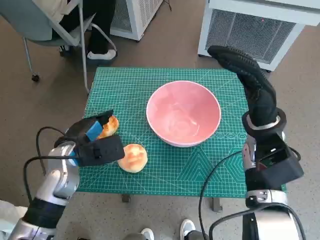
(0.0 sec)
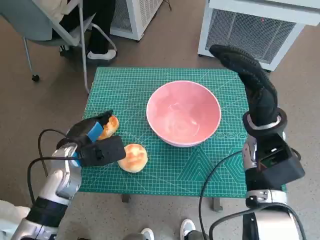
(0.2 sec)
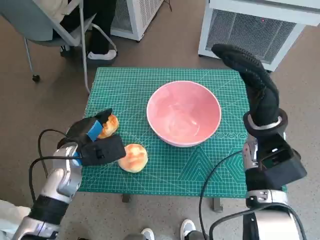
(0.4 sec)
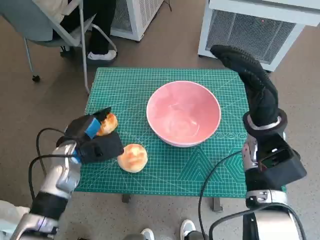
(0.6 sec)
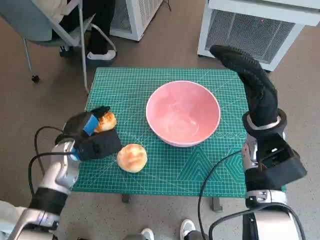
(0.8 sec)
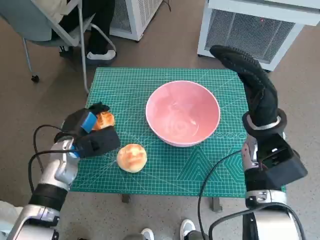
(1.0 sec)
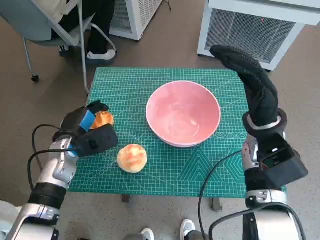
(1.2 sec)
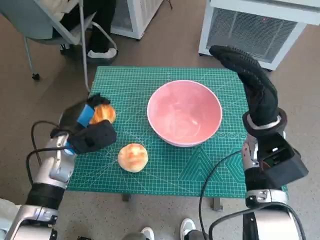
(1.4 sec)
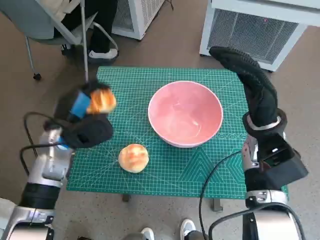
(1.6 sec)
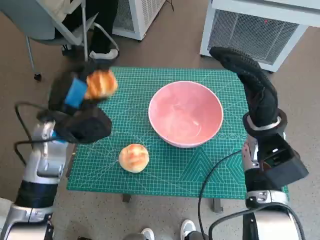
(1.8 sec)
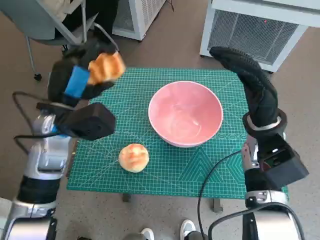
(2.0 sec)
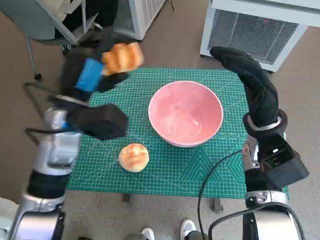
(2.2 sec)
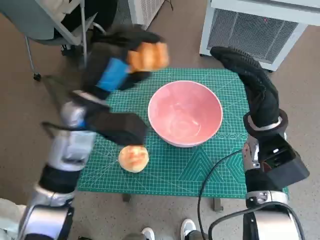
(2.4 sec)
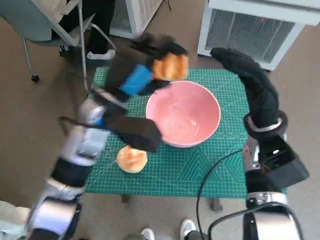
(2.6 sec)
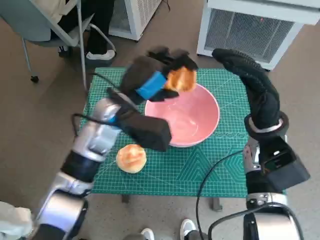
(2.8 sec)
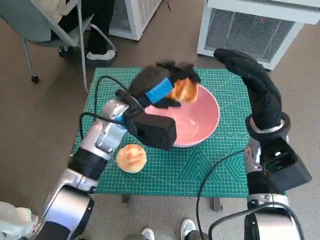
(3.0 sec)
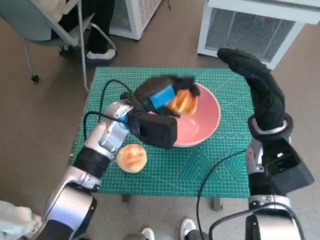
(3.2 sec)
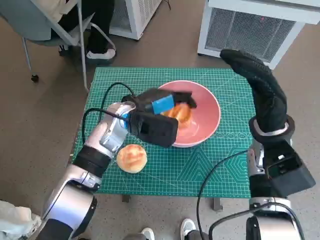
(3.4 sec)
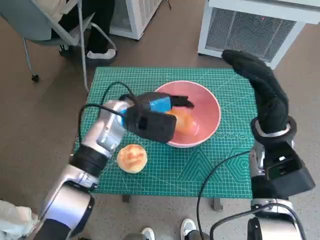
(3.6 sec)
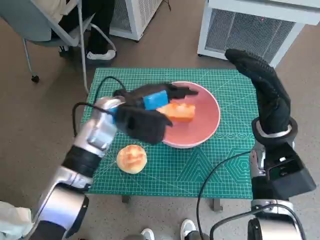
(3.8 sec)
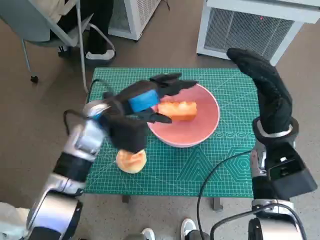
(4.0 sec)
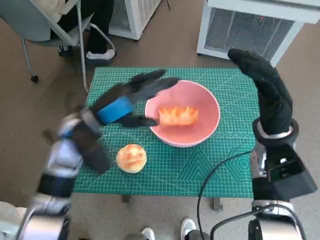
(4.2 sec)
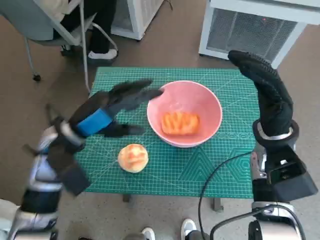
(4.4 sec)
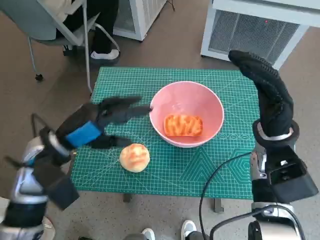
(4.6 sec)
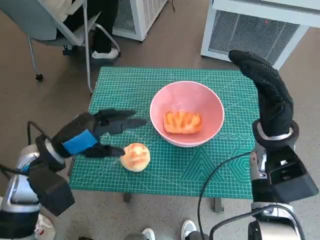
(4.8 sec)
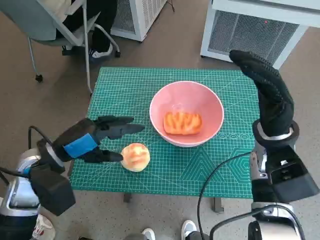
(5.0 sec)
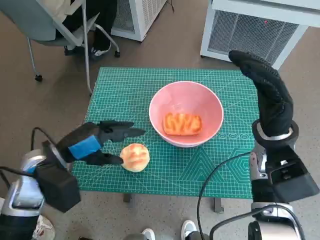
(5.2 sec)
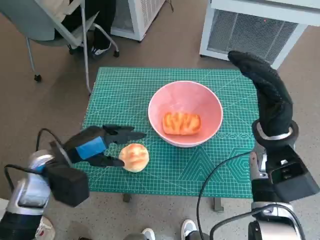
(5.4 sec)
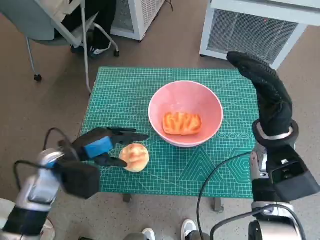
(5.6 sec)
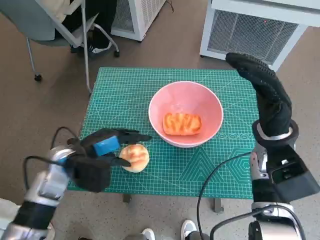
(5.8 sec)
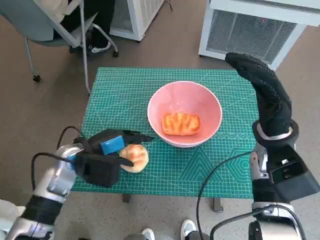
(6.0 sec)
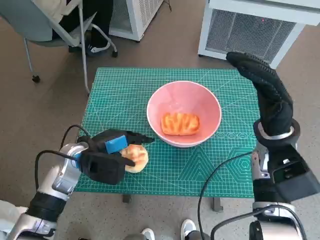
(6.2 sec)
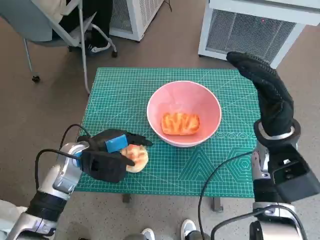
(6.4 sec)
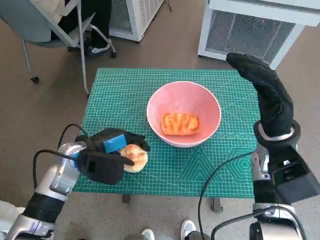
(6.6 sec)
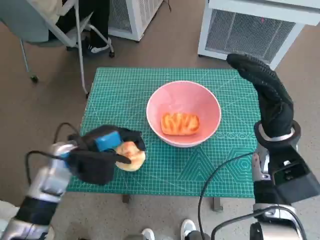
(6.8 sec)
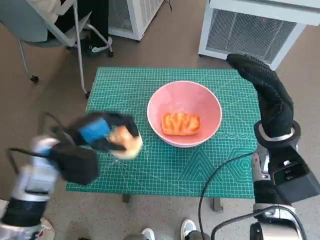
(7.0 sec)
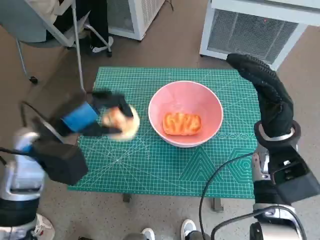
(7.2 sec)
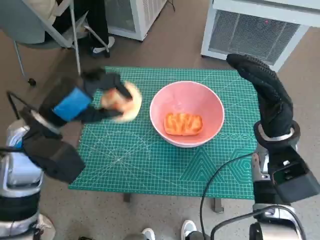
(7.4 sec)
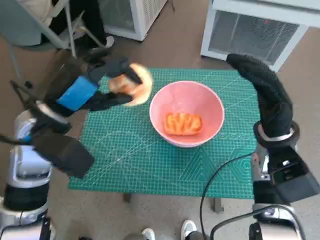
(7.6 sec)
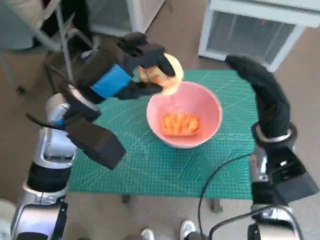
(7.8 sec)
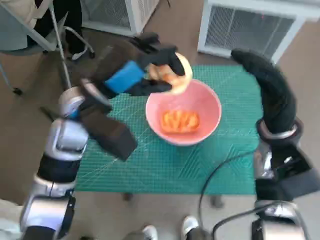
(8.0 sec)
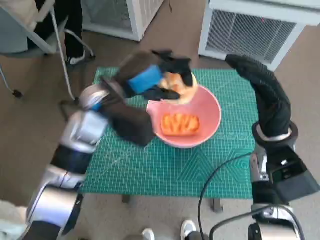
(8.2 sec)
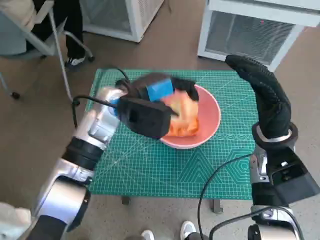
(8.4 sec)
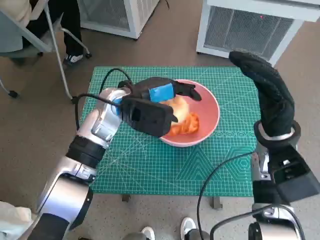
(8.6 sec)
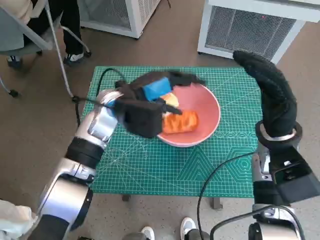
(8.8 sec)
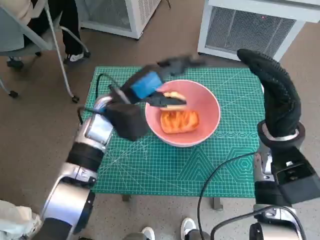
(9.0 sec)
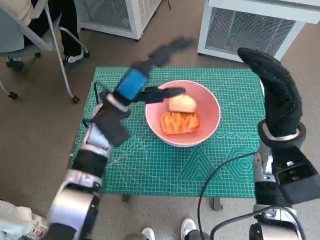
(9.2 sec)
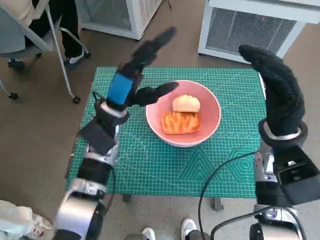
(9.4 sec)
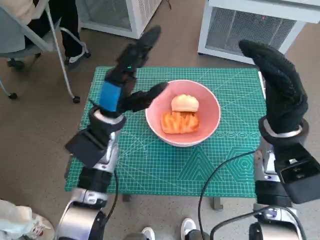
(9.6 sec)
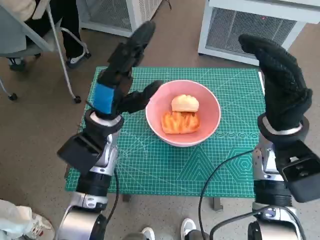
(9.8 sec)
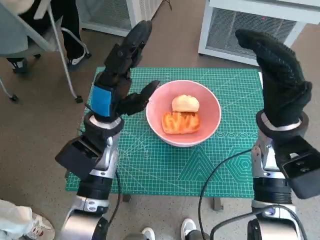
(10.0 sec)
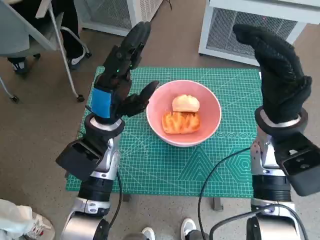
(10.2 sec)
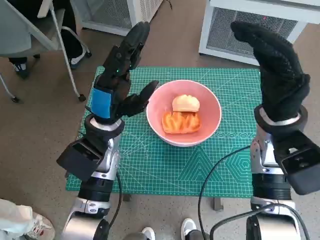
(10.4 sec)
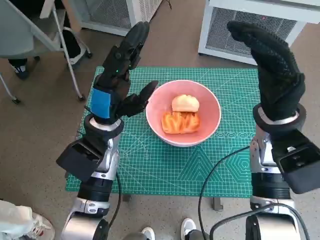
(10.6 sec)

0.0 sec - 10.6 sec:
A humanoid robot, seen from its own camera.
Task of the whole recording: Push the bowl to the center of the table and put the bread into the bowl.
Step, 1.2 sec - 3.8 sec: Place the long bread in pink bowl with left hand.
Step, 4.2 sec - 6.6 sec: Grasp the round bread with left hand.
Step, 6.8 sec - 8.8 sec: Place the round bread in pink bowl with left hand.
1.6 sec - 3.0 sec: The left hand shifts roughly 15 cm to the right and upward.
3.0 sec - 4.6 sec: The left hand goes about 15 cm to the left and backward.
4.6 sec - 6.0 sec: The left hand travels downward by some 5 cm.
6.0 sec - 7.6 sec: The left hand moves upward, some 10 cm.
7.6 sec - 9.0 sec: The left hand shifts roughly 15 cm to the right, forward and downward.
9.0 sec - 10.6 sec: The left hand moves some 5 cm.

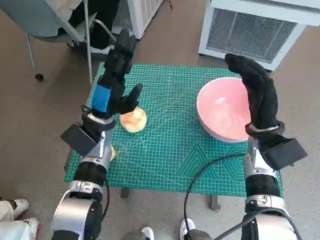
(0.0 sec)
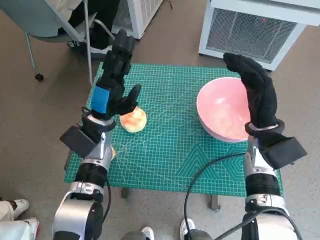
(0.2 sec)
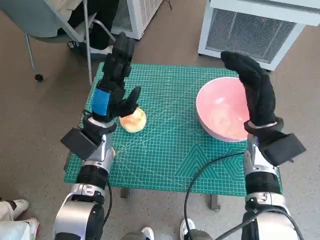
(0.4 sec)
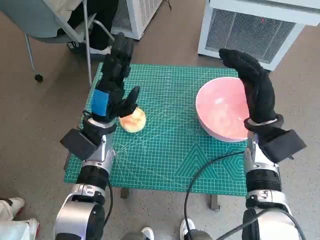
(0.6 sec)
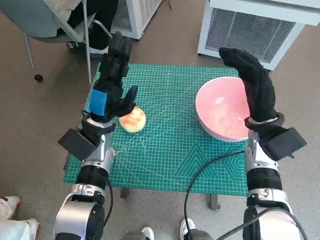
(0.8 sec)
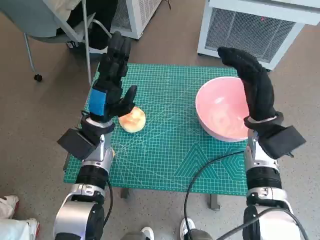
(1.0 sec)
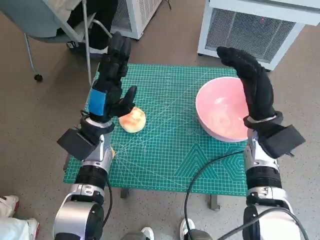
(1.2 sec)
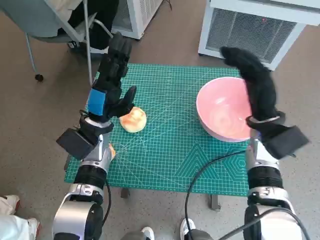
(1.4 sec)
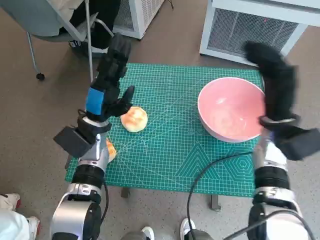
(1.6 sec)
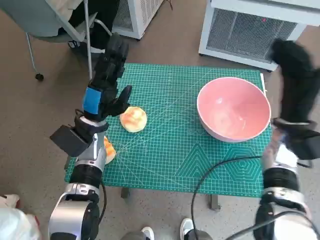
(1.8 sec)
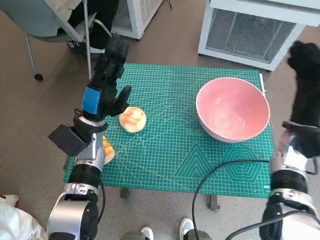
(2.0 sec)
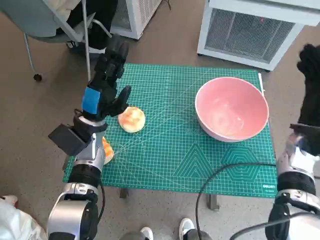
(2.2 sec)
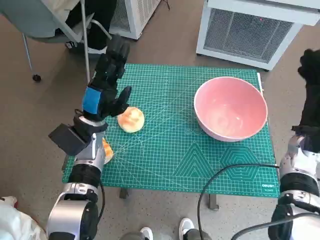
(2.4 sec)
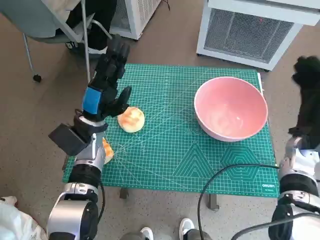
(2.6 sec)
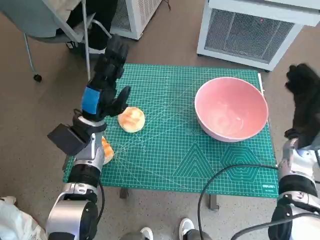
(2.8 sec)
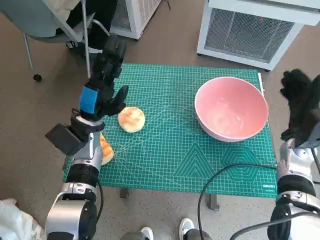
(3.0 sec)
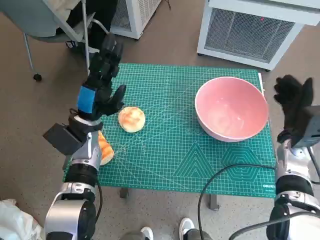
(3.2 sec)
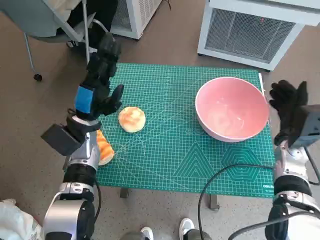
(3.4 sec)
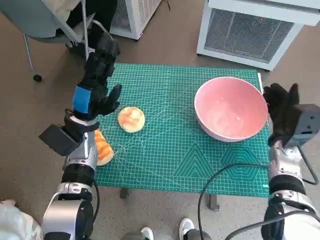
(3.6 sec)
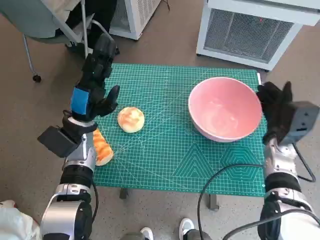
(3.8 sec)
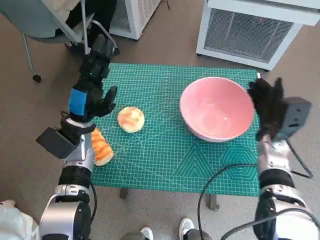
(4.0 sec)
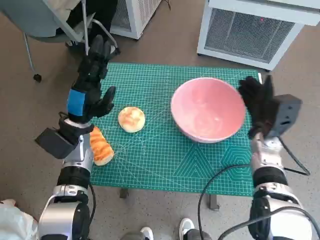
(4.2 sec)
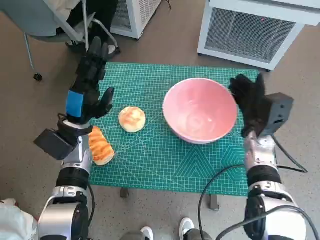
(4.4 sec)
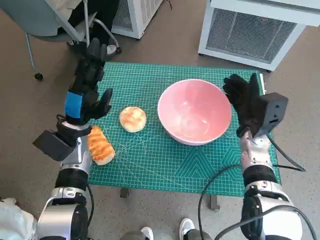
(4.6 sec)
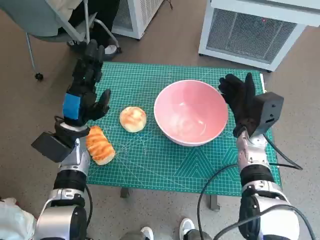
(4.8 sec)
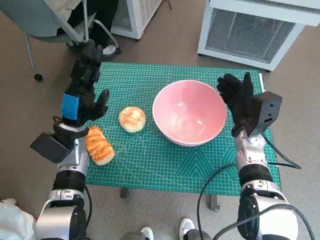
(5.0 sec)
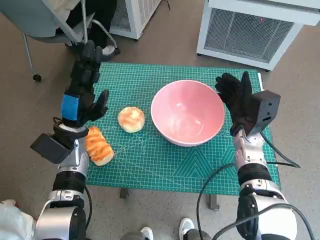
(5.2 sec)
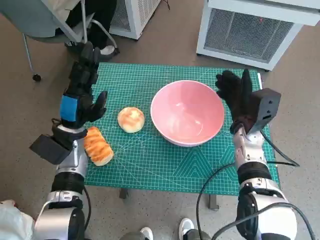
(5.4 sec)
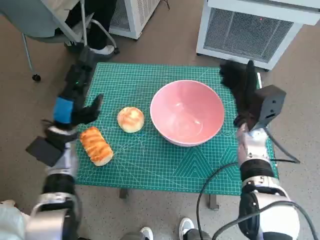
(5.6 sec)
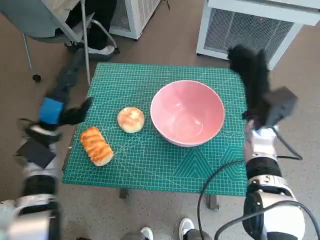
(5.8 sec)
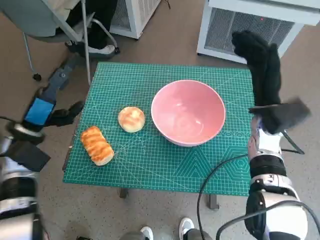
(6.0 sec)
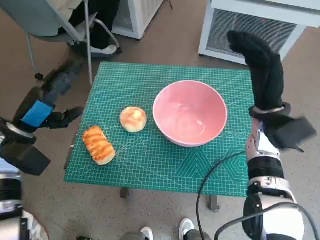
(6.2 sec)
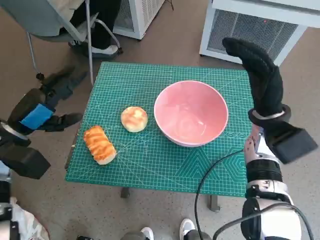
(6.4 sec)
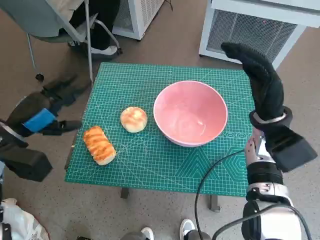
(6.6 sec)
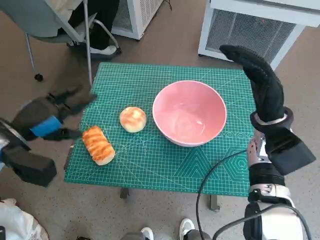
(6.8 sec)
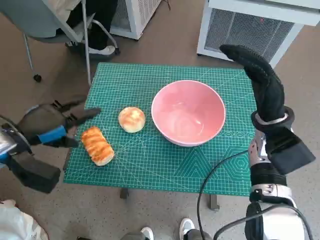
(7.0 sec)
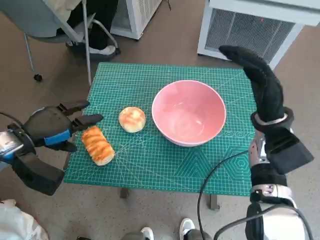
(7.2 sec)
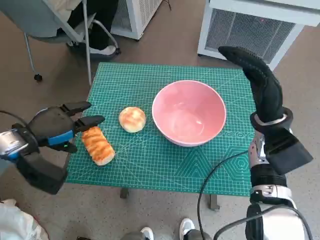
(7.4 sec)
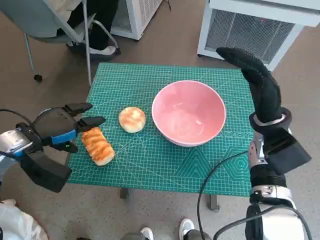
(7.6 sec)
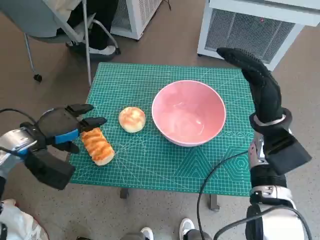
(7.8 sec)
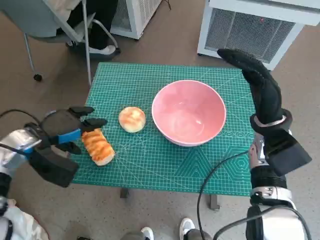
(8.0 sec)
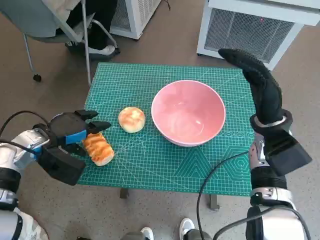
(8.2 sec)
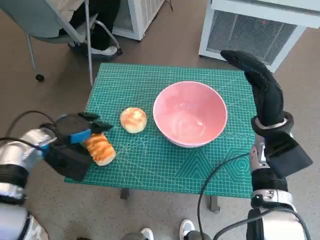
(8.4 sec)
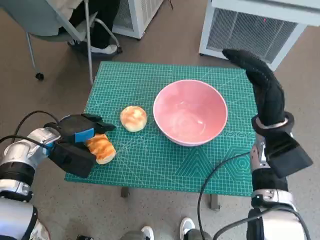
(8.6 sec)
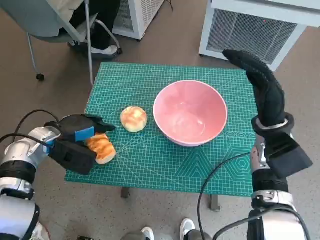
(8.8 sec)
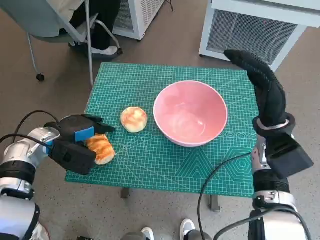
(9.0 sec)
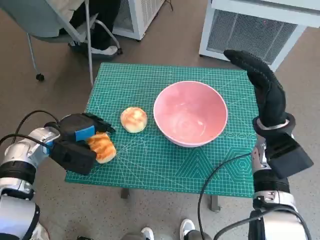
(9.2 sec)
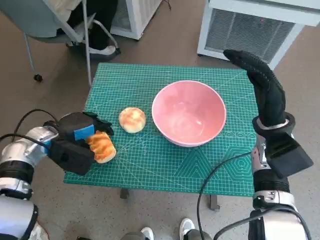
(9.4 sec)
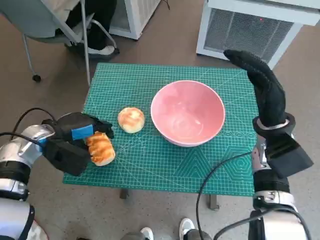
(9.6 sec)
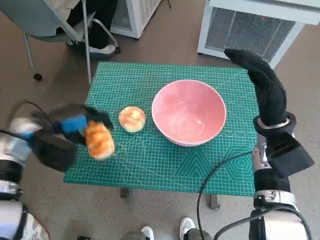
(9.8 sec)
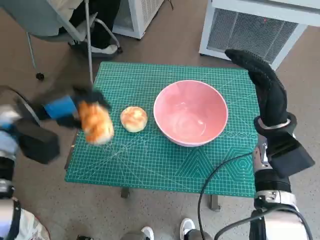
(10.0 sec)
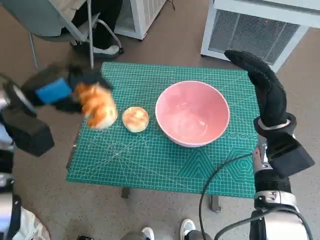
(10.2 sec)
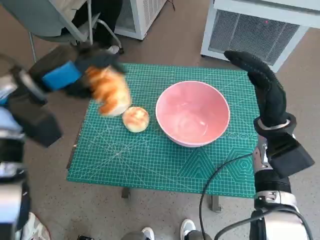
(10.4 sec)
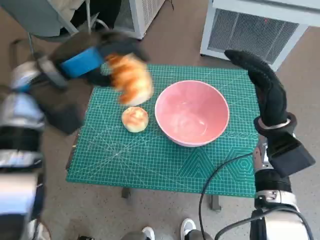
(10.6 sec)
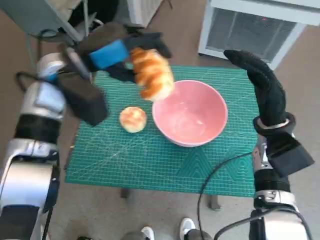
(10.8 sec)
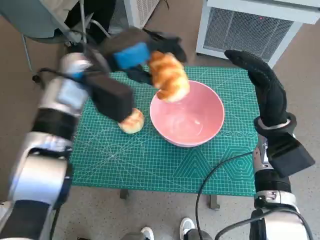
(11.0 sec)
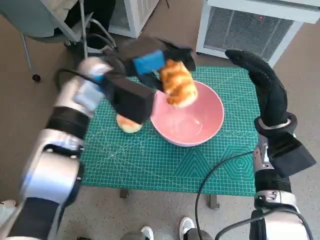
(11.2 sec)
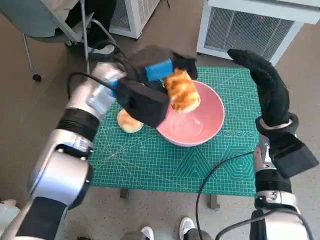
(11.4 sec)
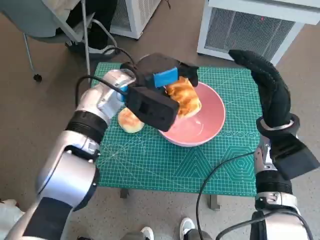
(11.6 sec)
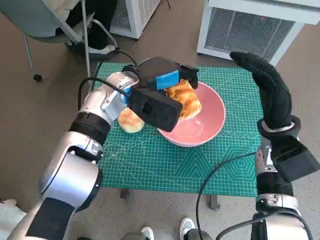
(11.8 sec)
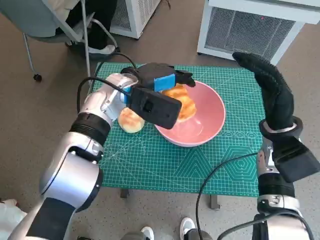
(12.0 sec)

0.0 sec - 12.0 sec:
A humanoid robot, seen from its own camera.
Task of the whole recording: Push the bowl to the center of the table and put the bread into the bowl.
Step, 0.0 sec - 5.6 sec: Move the pink bowl to the center of table with right hand.
Step, 5.8 sec - 9.4 sec: Grasp the long bread with left hand.
1.6 sec - 3.0 sec: The right hand is displaced to the right by roughly 5 cm.
3.0 sec - 4.4 sec: The right hand moves to the left, some 5 cm.
4.4 sec - 6.0 sec: The left hand goes some 10 cm to the left, while the right hand shifts about 5 cm upward.
7.6 sec - 9.0 sec: The left hand moves approximately 5 cm.
9.0 sec - 10.4 sec: The left hand shifts some 15 cm upward.
10.4 sec - 12.0 sec: The left hand moves to the right, roughly 15 cm.
